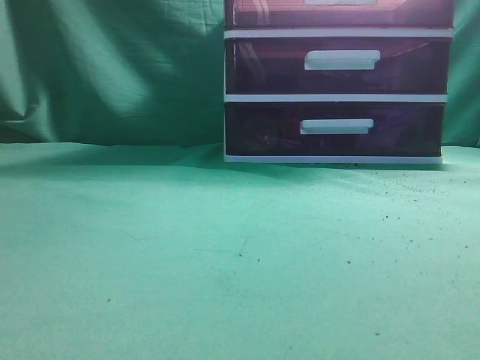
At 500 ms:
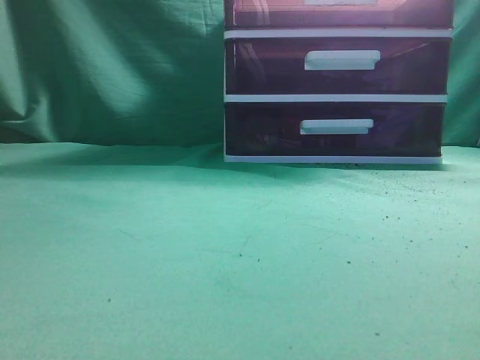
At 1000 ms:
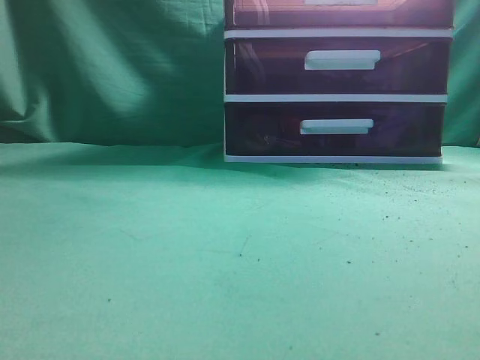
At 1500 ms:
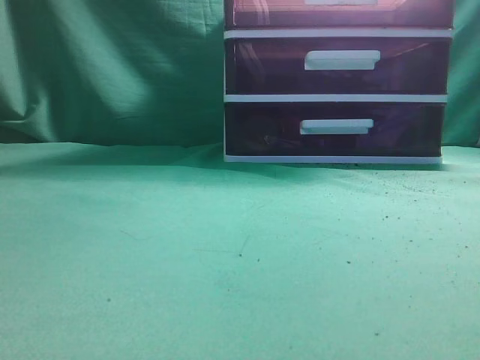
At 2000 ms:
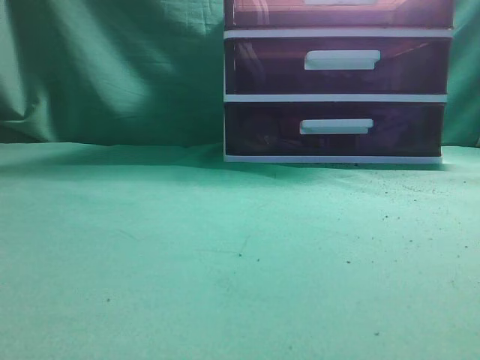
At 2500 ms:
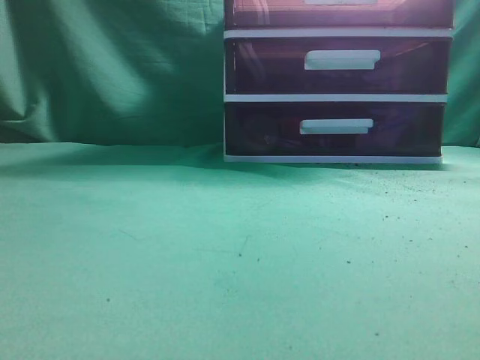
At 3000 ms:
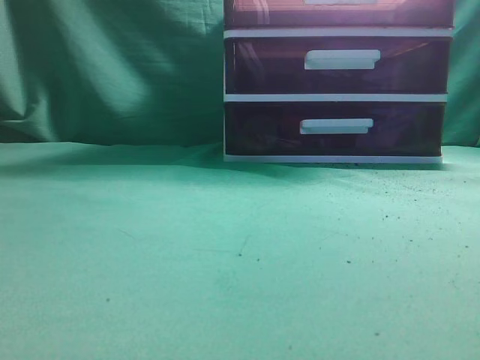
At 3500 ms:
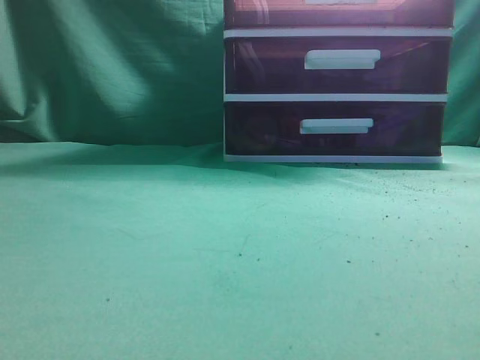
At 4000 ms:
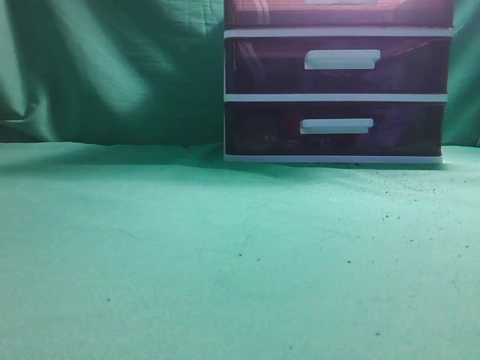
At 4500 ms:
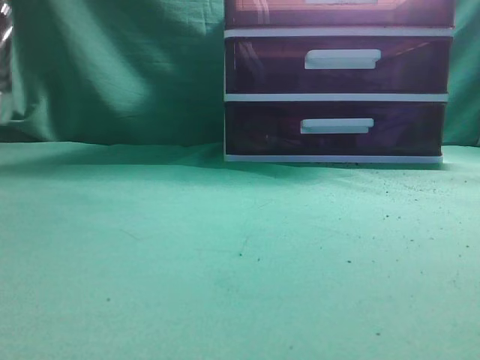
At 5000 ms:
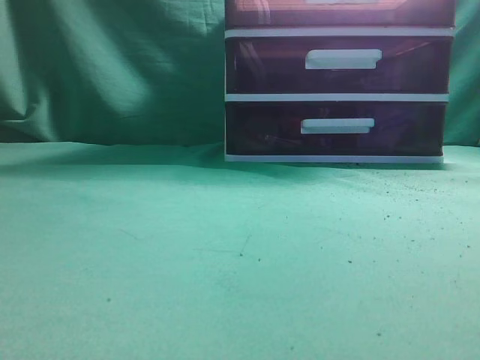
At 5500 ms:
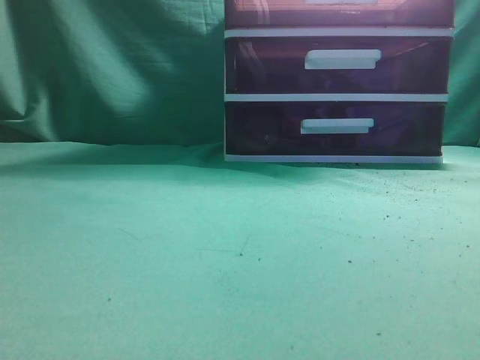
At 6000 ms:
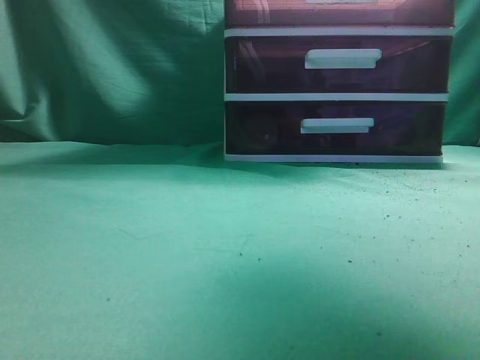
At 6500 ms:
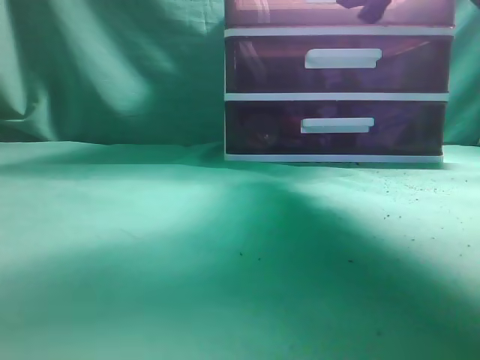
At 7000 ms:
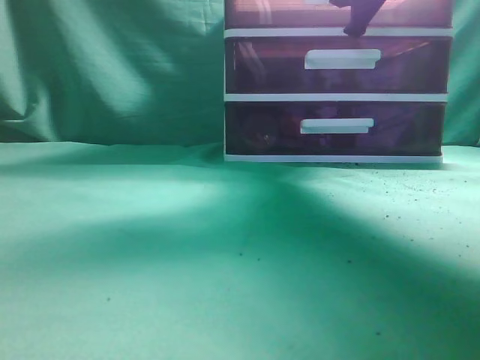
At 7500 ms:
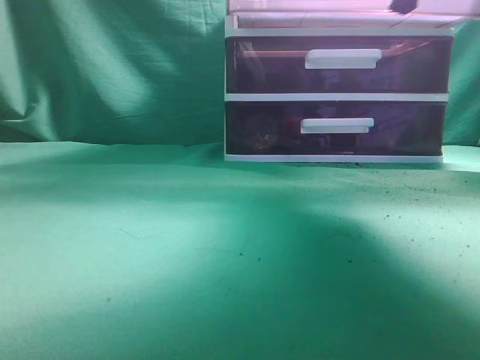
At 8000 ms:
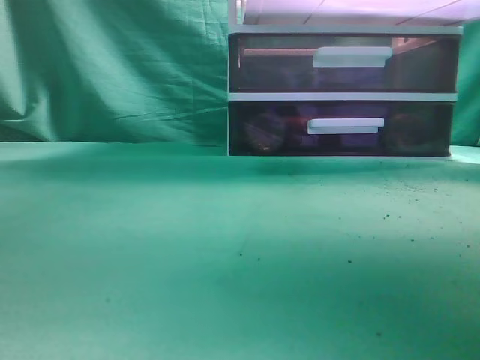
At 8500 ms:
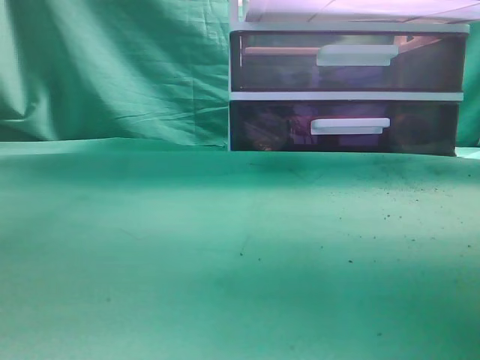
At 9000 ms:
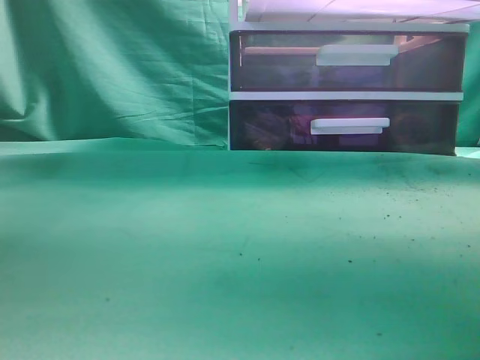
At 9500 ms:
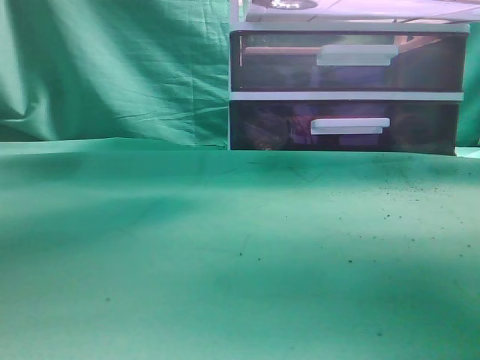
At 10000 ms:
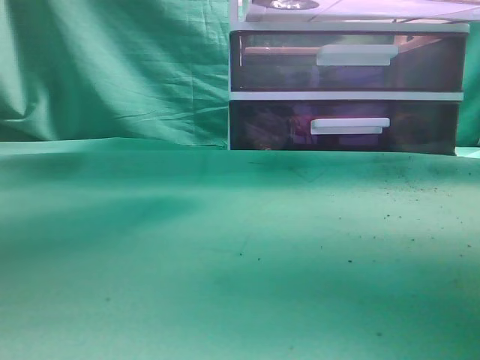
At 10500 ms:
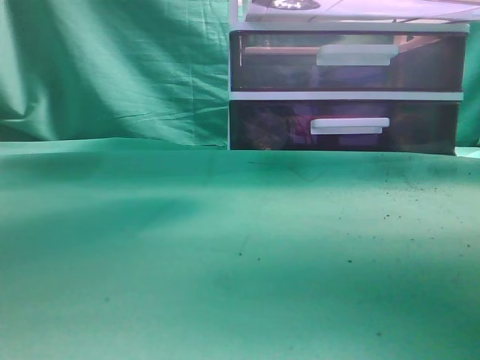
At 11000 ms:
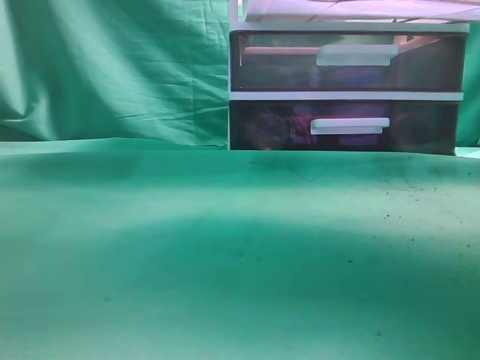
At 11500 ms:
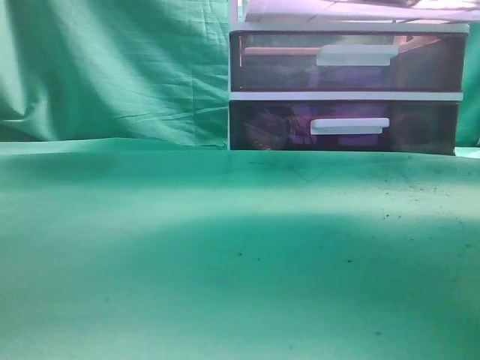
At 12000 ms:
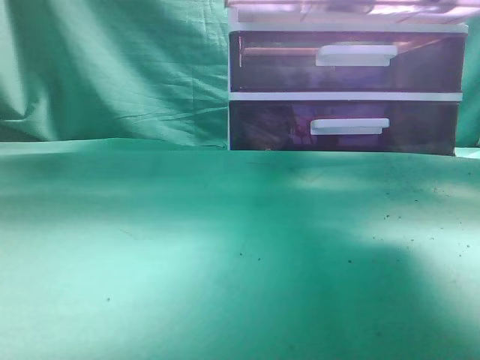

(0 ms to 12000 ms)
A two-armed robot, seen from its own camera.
Task of the whole recording: place the water bottle into the drawer.
Step, 0 ms - 8000 ms: Open the drawer.
Step, 8500 ms - 11000 ms: Place the water bottle inside the drawer.
4000 ms - 6000 ms: The right gripper travels forward and upward by about 30 cm, and opens, while the left gripper travels upward, to the right and backward by some 20 cm.
6000 ms - 8000 ms: The right gripper heads downward, covering about 5 cm, reaches roughly 15 cm forward, then returns, and closes up.
8000 ms - 10000 ms: The left gripper goes roughly 25 cm to the right and forward, and opens up.
10000 ms - 12000 ms: The left gripper moves upward, to the left and backward, approximately 15 cm, and closes its fingers, while the right gripper heads forward, covering approximately 10 cm.

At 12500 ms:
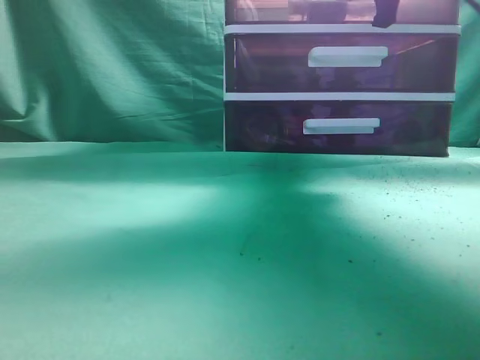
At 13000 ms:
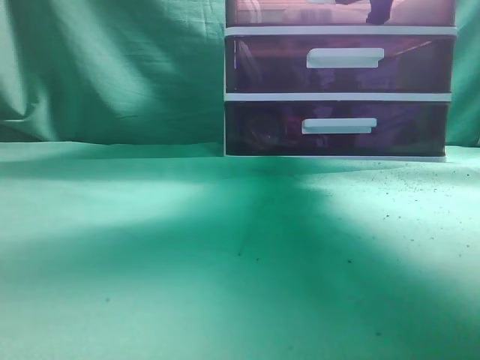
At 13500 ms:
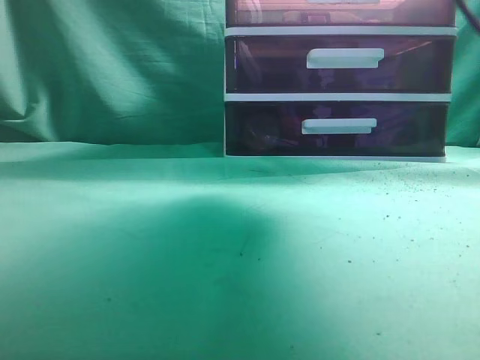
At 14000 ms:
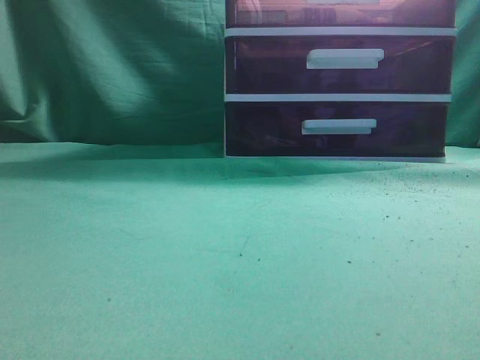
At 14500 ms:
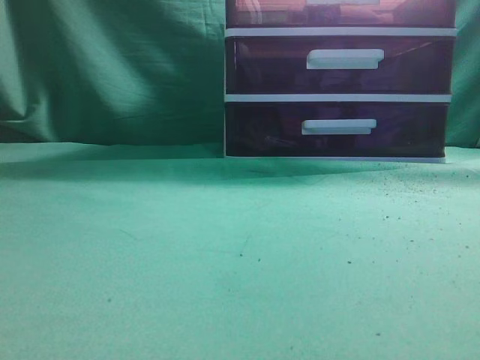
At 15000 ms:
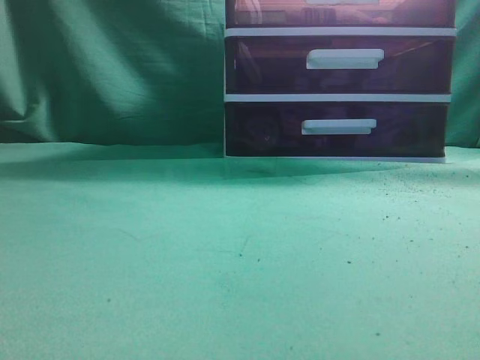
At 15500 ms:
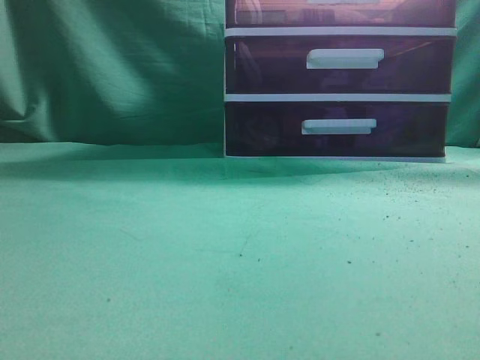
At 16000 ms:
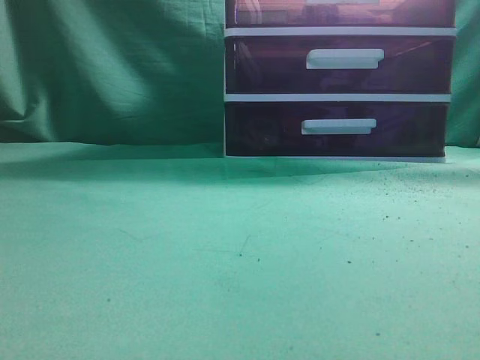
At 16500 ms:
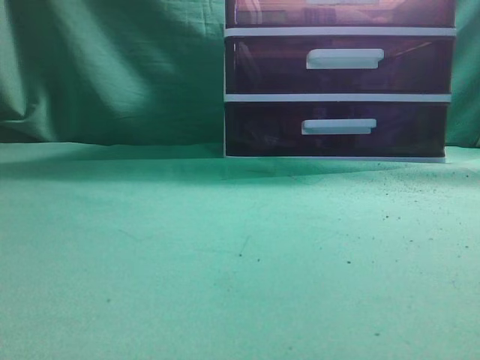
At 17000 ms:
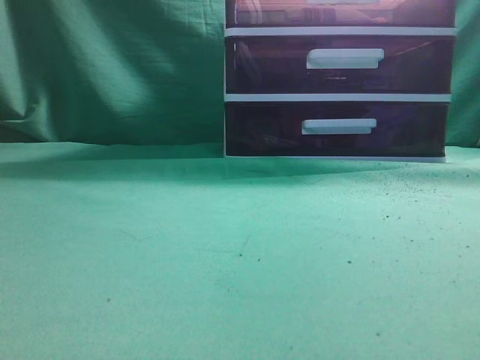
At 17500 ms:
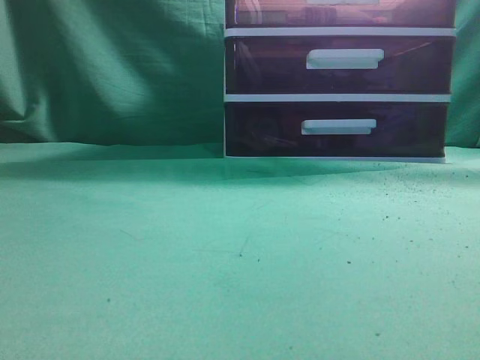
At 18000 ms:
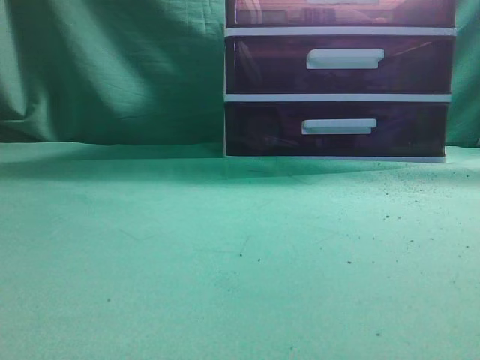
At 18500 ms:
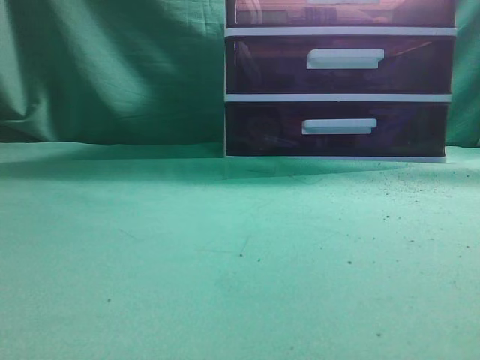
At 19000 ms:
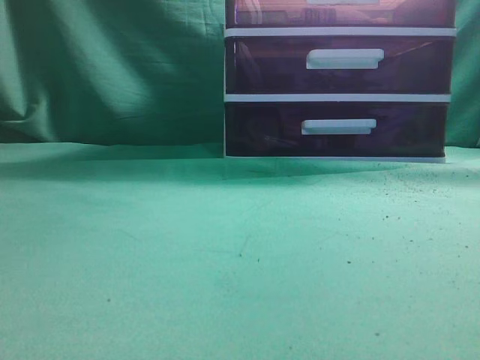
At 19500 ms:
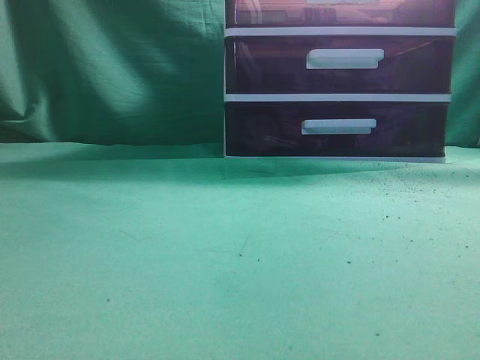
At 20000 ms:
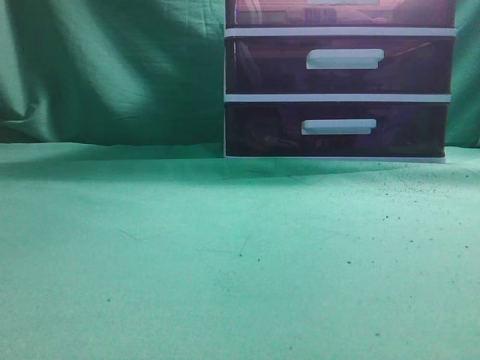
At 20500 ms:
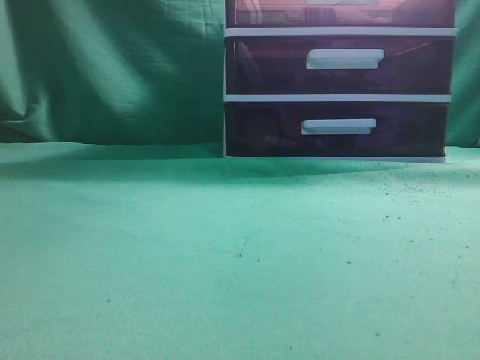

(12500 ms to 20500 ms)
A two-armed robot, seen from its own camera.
Task of the whole recording: place the water bottle into the drawer.
12500 ms - 14500 ms: The right gripper is displaced backward by about 30 cm, and opens, then closes again; the left gripper is displaced backward, downward and to the left by approximately 25 cm.
